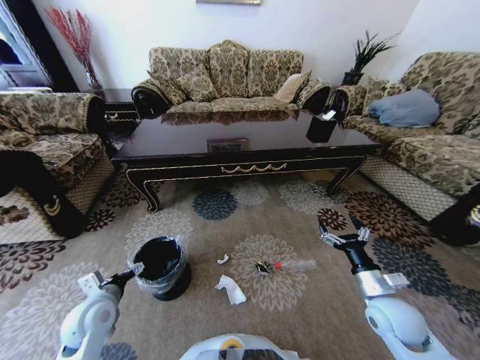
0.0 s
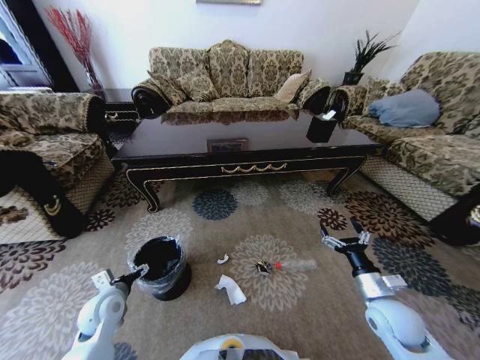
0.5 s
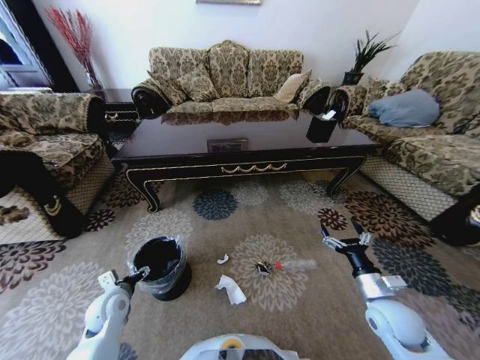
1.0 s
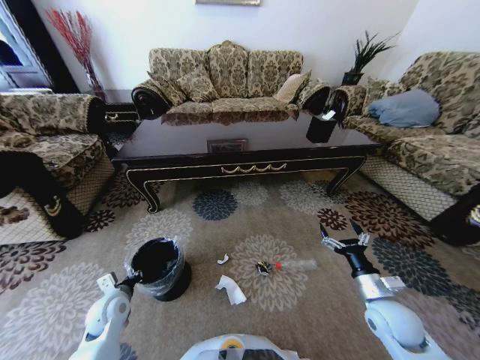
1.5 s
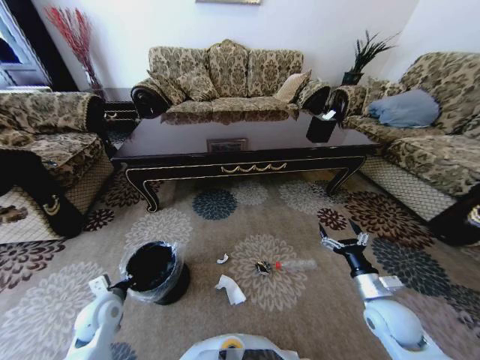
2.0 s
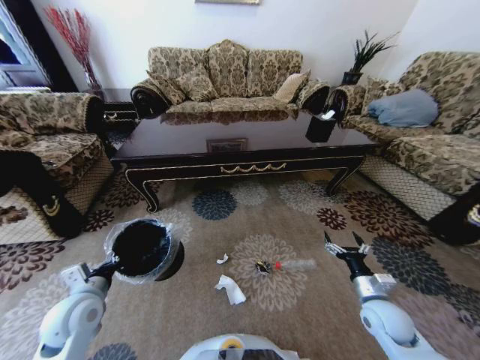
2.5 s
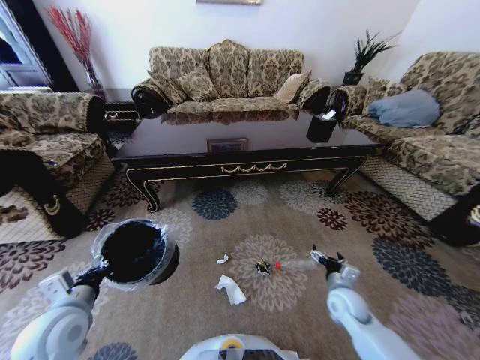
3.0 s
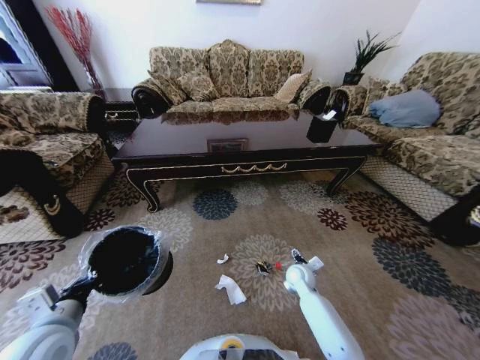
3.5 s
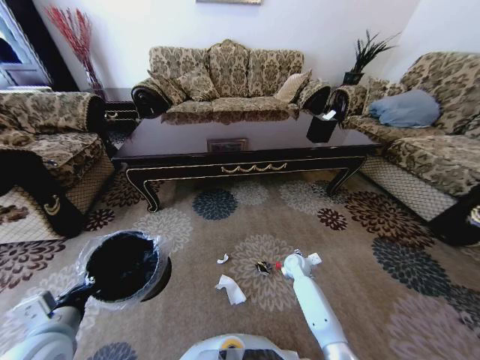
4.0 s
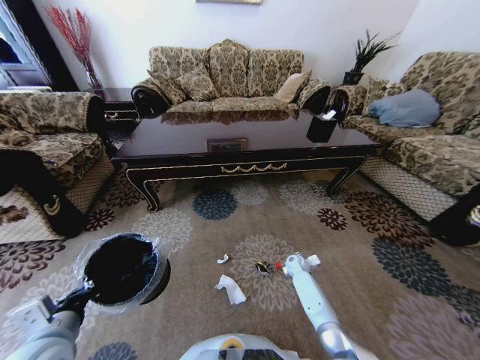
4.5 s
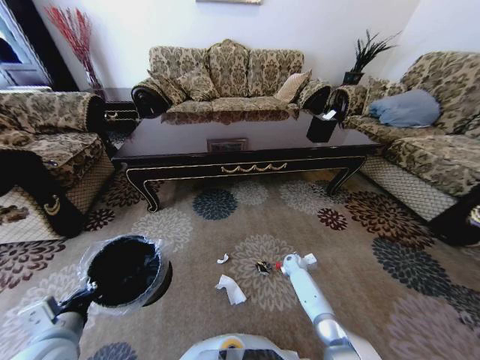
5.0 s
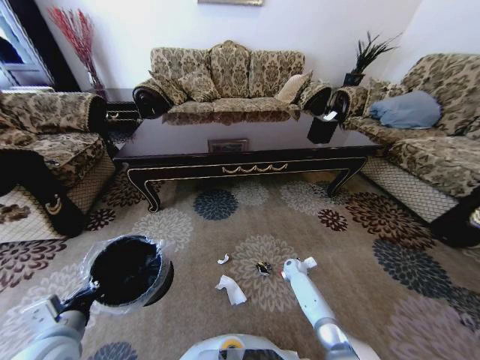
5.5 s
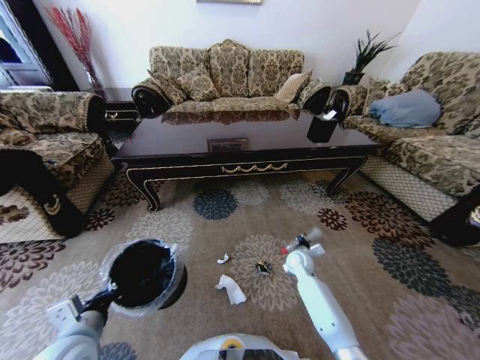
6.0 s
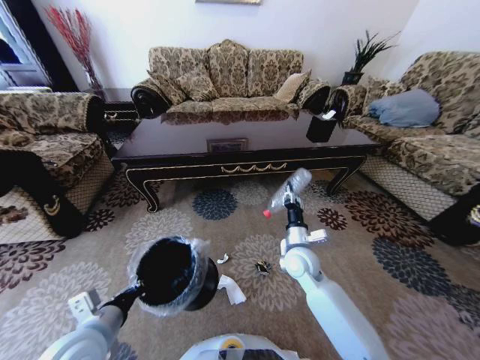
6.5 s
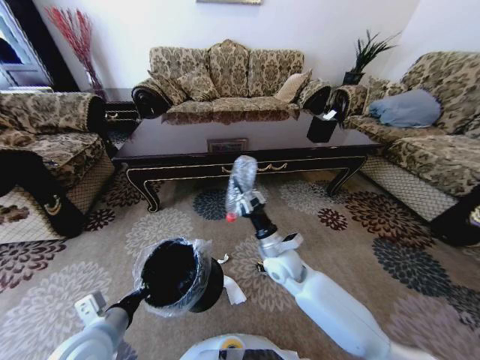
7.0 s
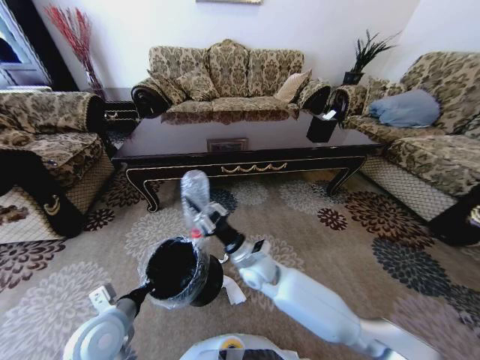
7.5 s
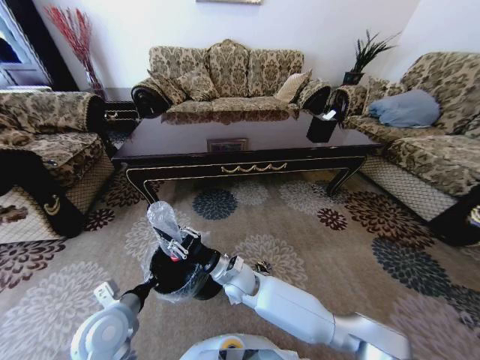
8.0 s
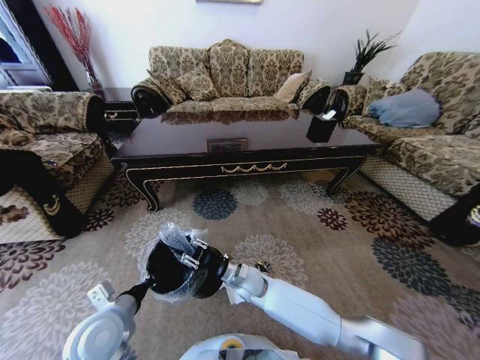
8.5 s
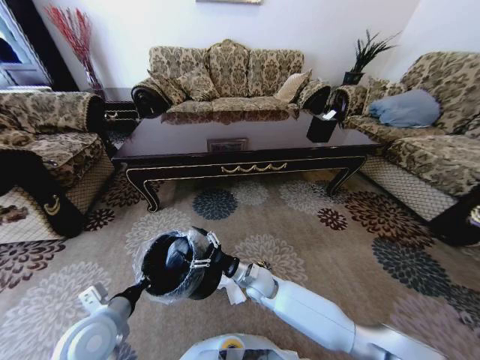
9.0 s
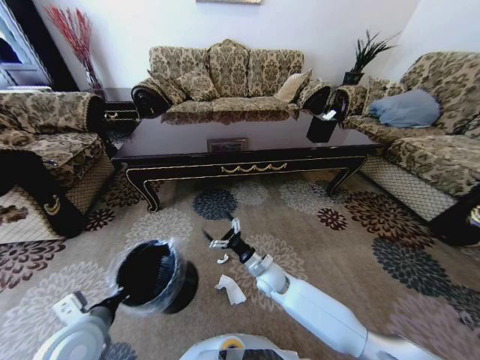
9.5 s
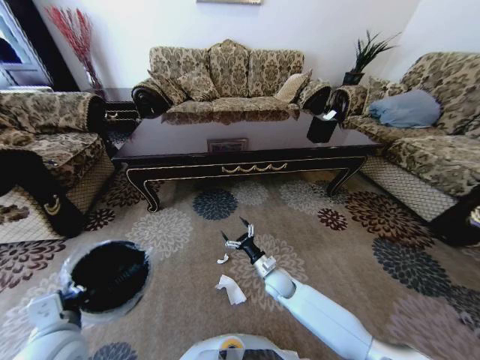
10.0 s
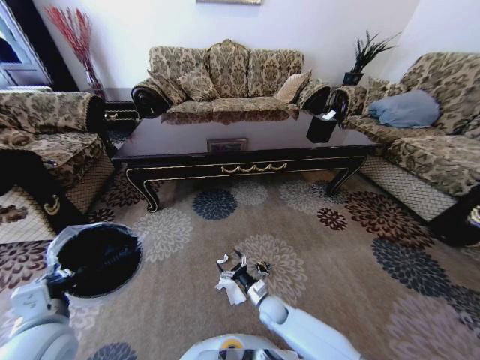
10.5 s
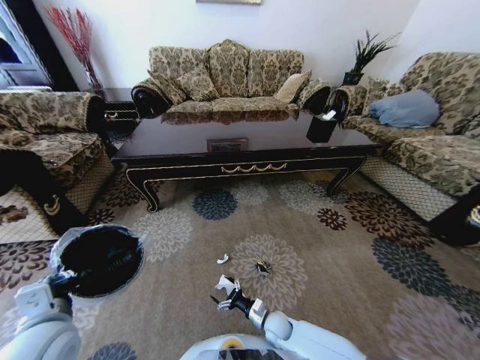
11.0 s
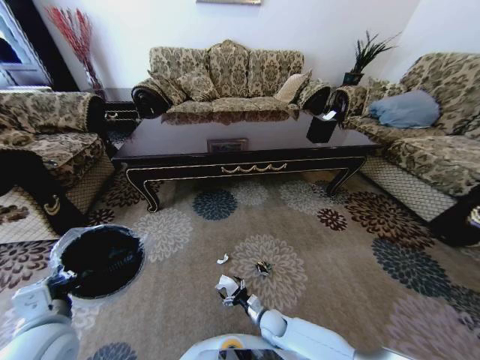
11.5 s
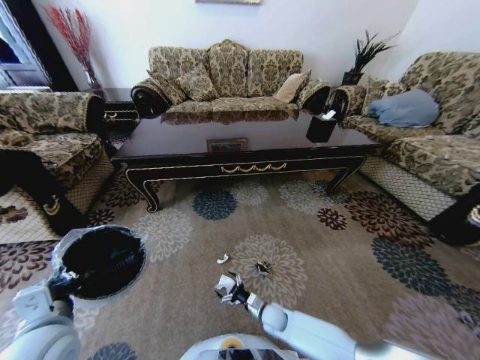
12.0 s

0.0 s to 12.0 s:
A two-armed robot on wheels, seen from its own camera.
Task of the whole recording: Move to the front of the table and pick up the trash from the floor, then place it into the trash bin.
0.0 to 2.0 s: The left gripper shifts some 5 cm downward, and closes.
2.0 to 4.0 s: The right gripper moves forward, downward and to the left, about 25 cm. Meanwhile the left gripper is displaced upward and backward by approximately 15 cm.
4.0 to 6.0 s: The right gripper moves some 10 cm downward and comes back, and closes.
6.0 to 8.0 s: The right gripper travels to the left by approximately 25 cm. The left gripper heads forward, covering some 5 cm.
8.0 to 10.0 s: The left gripper shifts some 5 cm upward. Meanwhile the right gripper travels to the right and downward by roughly 20 cm, and opens its fingers.
10.0 to 12.0 s: The right gripper shifts roughly 15 cm downward and backward.

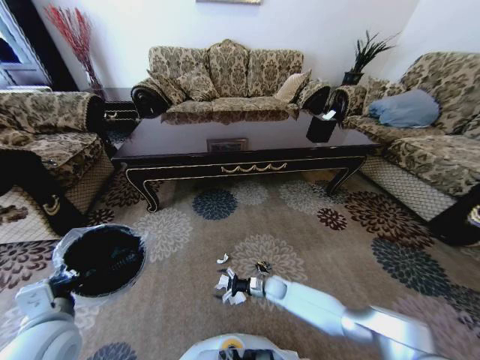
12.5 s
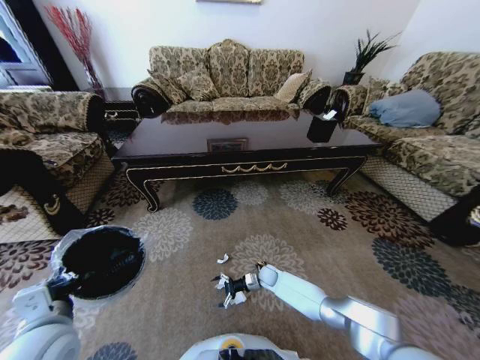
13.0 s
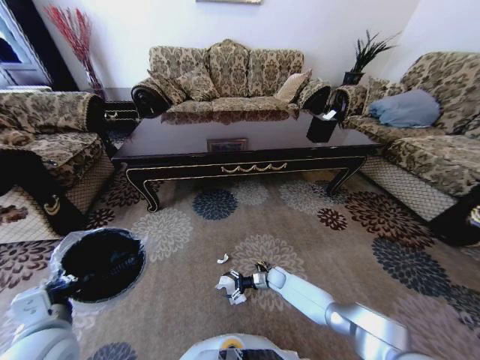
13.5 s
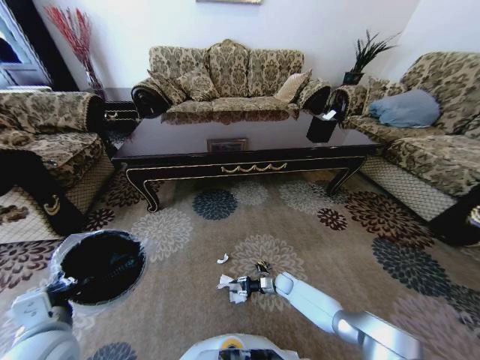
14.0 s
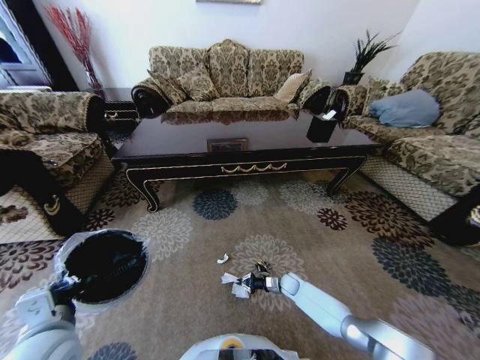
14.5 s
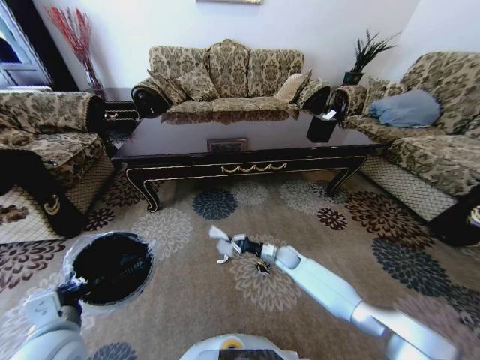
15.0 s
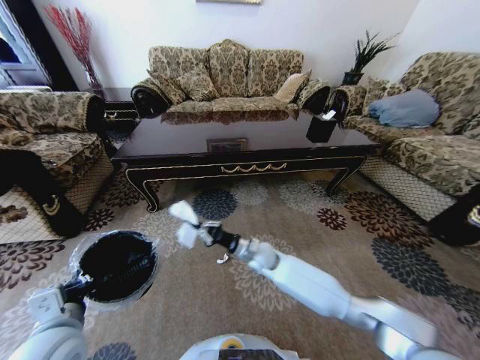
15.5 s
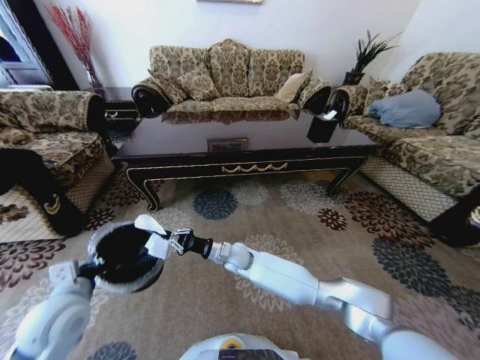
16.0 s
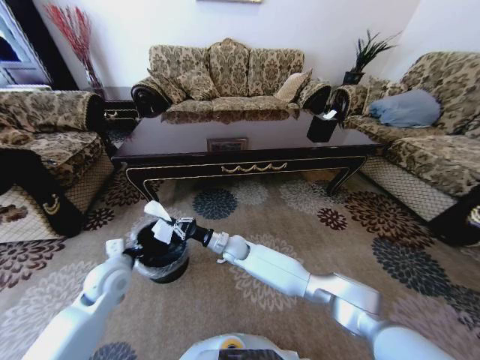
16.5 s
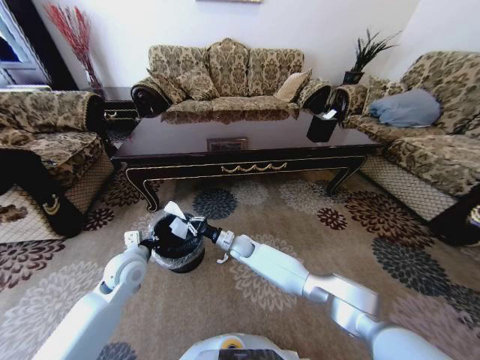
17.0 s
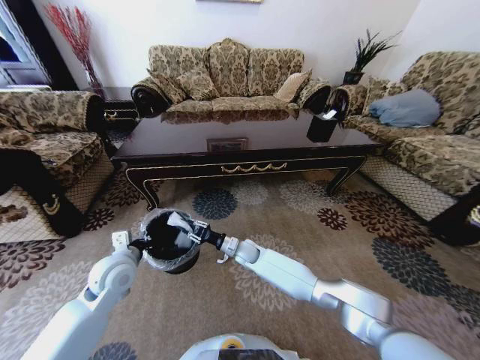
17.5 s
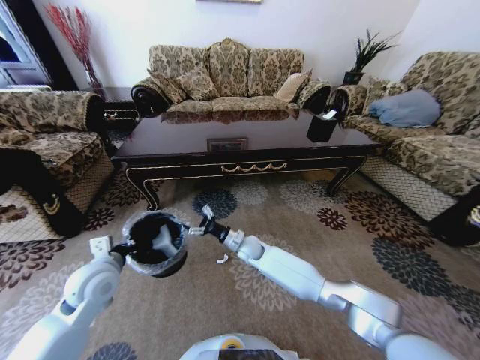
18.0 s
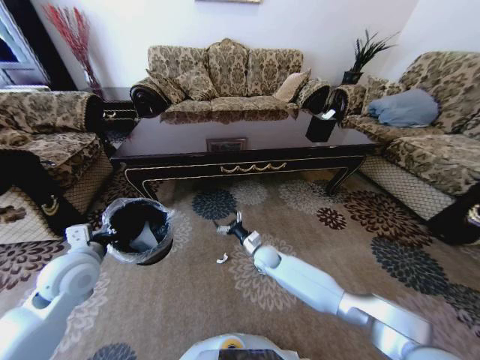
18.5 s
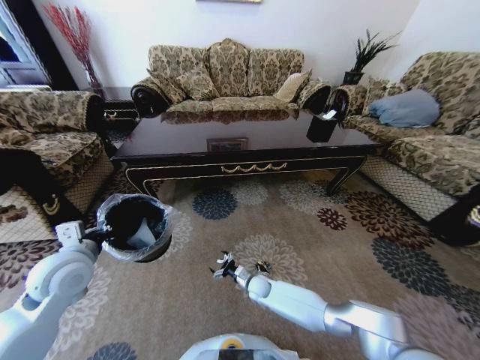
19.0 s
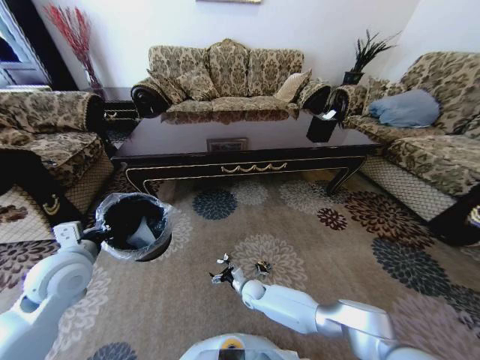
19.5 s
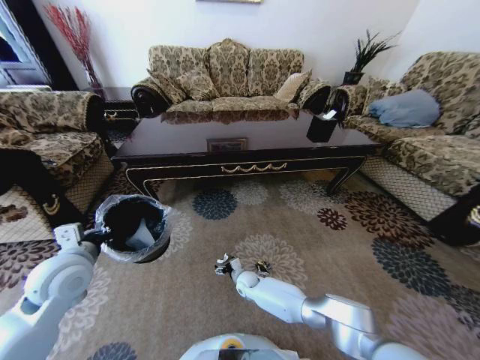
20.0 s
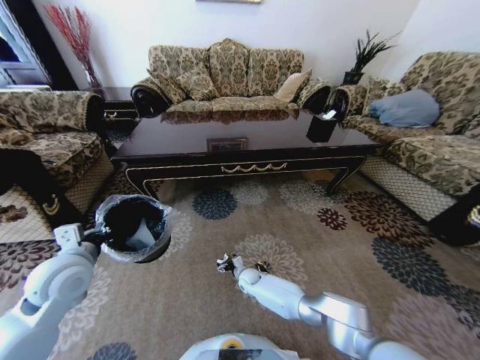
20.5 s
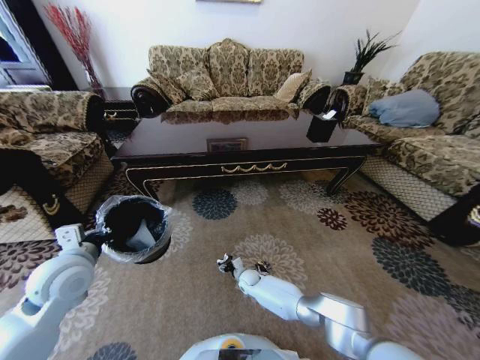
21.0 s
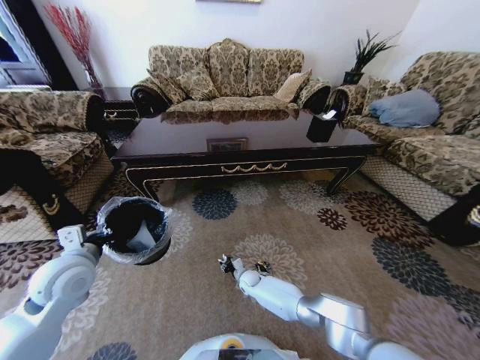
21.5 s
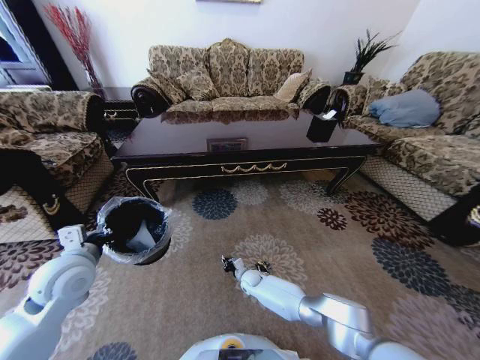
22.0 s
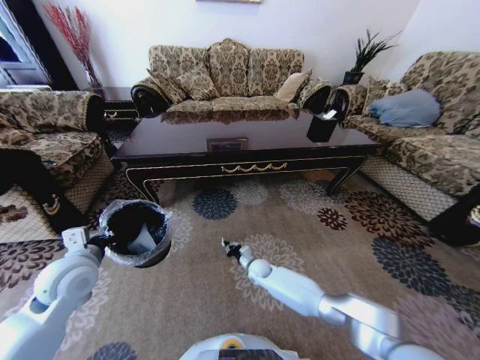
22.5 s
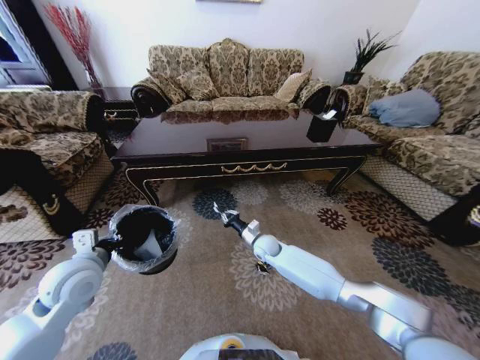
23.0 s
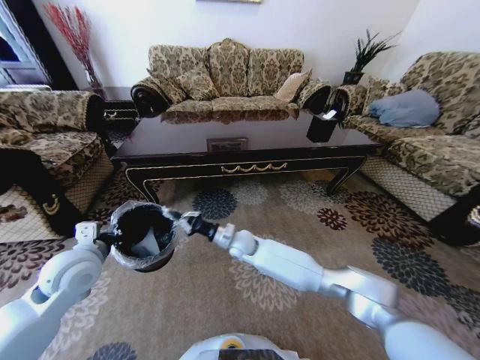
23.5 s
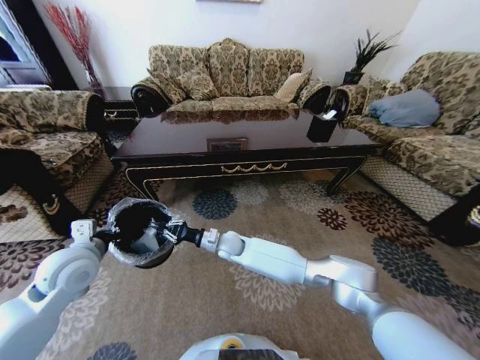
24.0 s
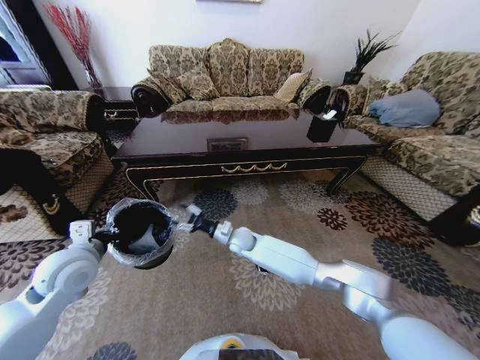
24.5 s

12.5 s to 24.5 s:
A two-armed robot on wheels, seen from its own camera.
Task of the whole recording: Move to the front of the table and pick up the trash from the floor, then place it into the trash bin.
12.5 to 14.5 s: The right gripper moves to the right, about 10 cm, and closes.
14.5 to 16.5 s: The left gripper moves forward, about 15 cm; the right gripper shifts some 35 cm to the left and upward.
16.5 to 18.5 s: The right gripper goes about 15 cm to the right and downward, and opens; the left gripper moves upward, about 10 cm.
18.5 to 20.5 s: The right gripper goes about 15 cm downward and to the left.
20.5 to 22.5 s: The right gripper shifts by about 5 cm, and closes up.
22.5 to 24.5 s: The right gripper is displaced upward and to the left by some 20 cm, and opens its fingers.

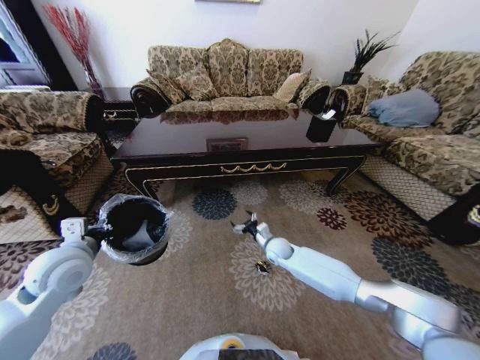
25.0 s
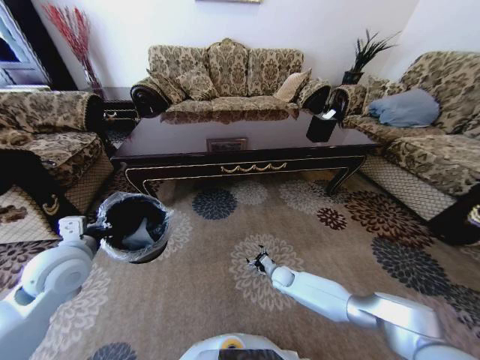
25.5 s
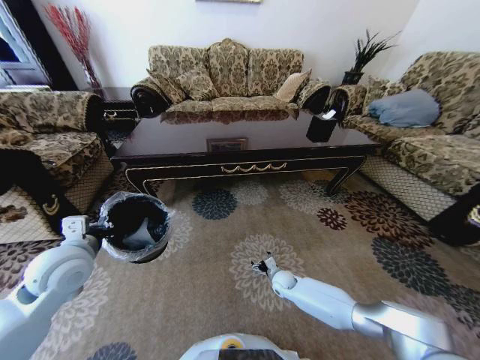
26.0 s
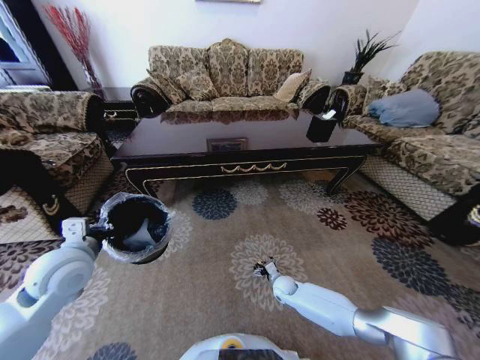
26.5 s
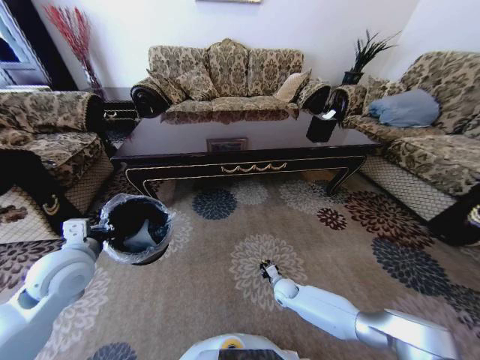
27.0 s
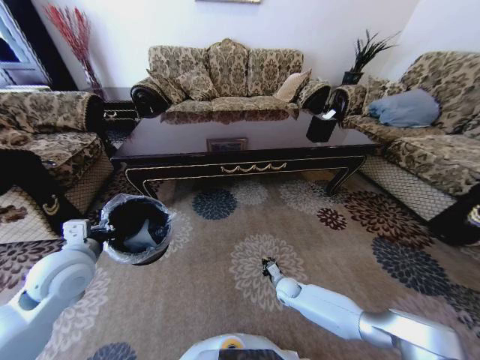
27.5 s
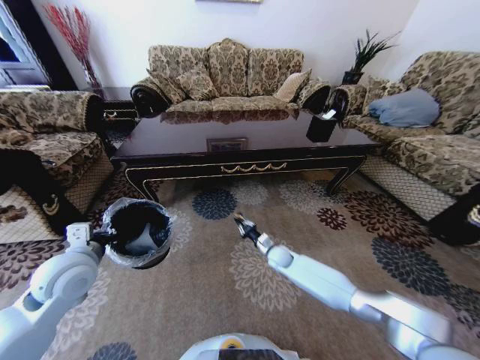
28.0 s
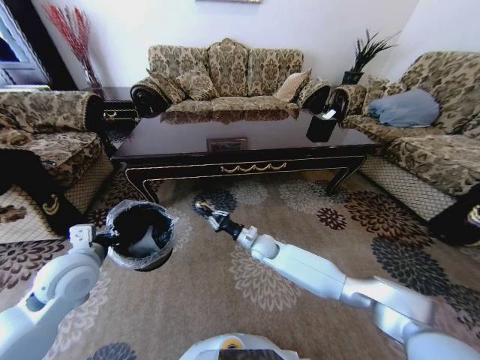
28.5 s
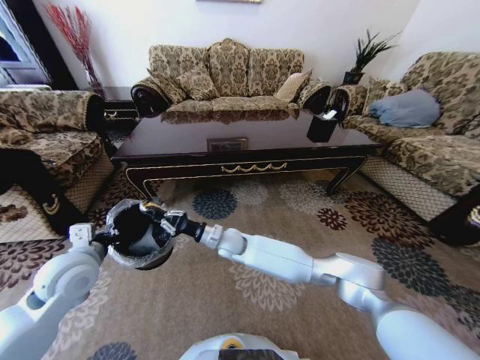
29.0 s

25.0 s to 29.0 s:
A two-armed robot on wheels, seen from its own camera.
Task of the whole recording: Move to the front of the table and pick up the trash from the floor, then place it into the trash bin.
25.0 to 27.0 s: The right gripper moves downward and backward, about 20 cm, and closes its fingers.
27.0 to 29.0 s: The right gripper goes roughly 35 cm upward and to the left, and closes its fingers.
